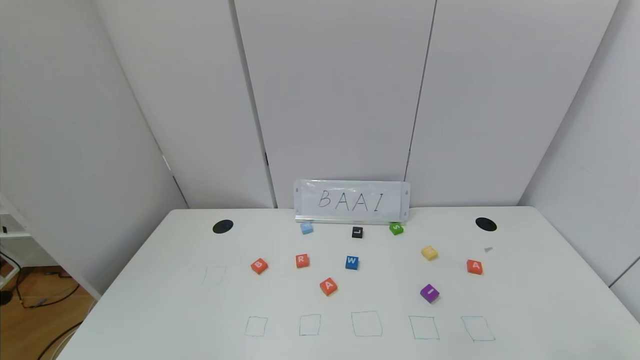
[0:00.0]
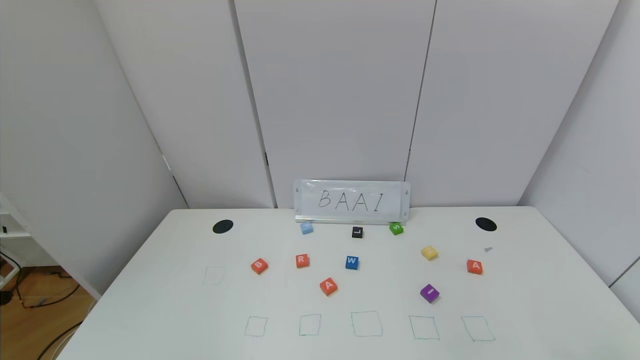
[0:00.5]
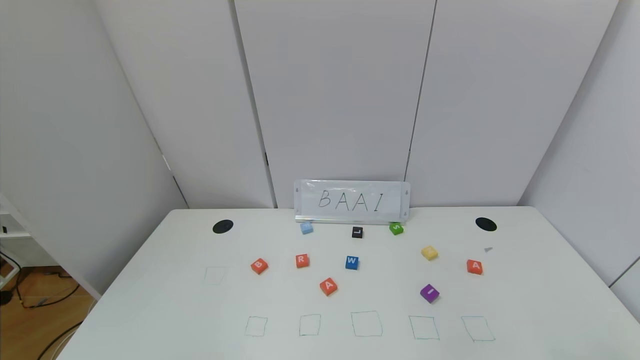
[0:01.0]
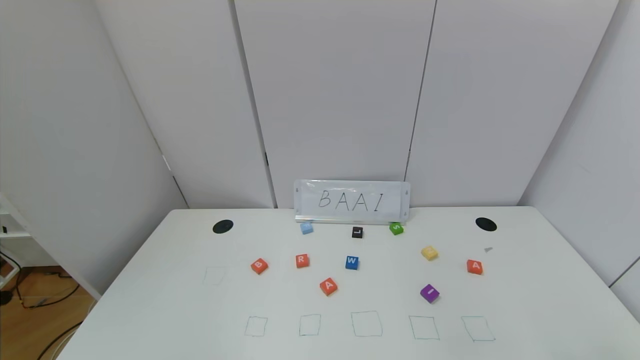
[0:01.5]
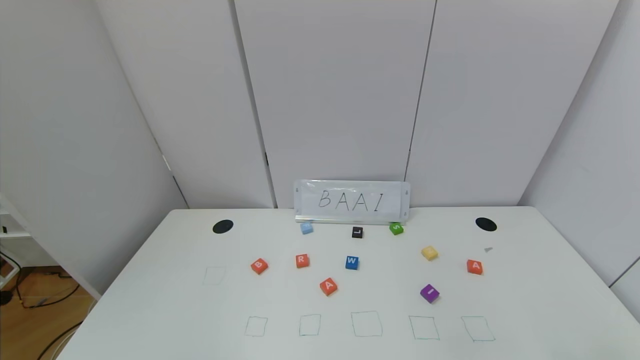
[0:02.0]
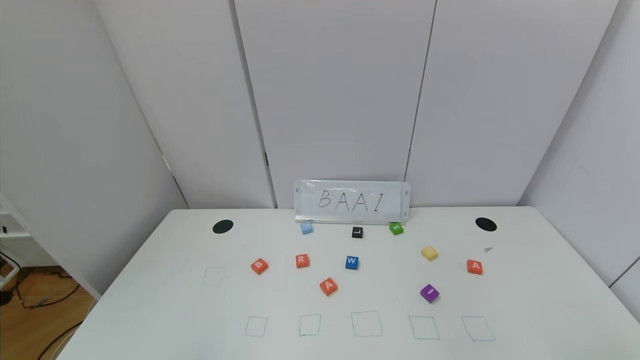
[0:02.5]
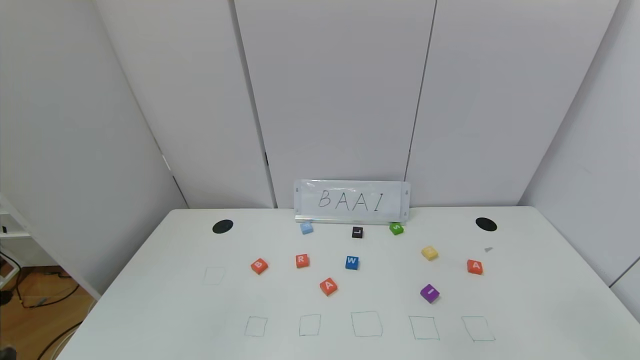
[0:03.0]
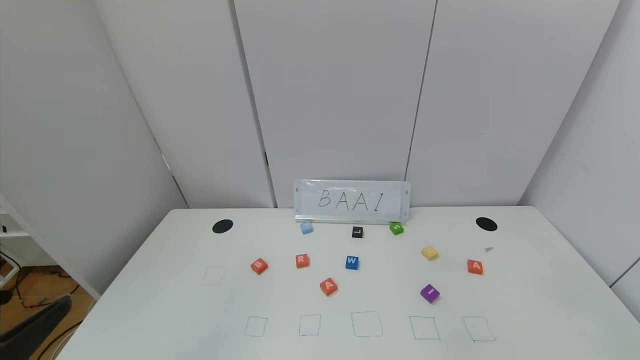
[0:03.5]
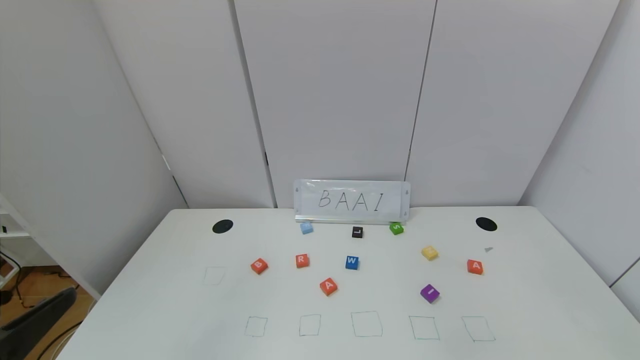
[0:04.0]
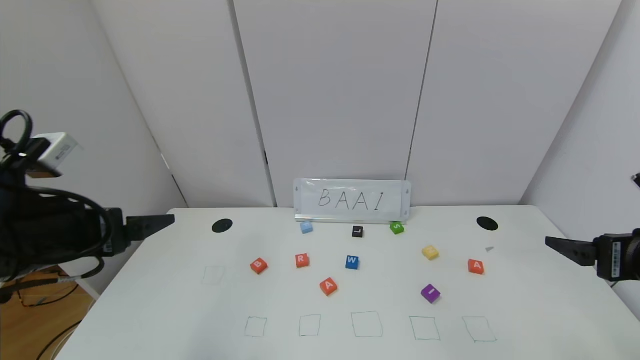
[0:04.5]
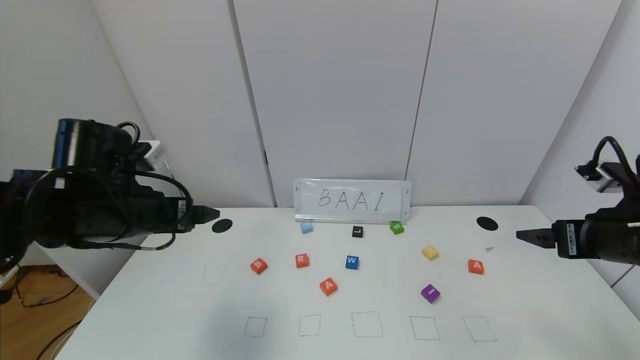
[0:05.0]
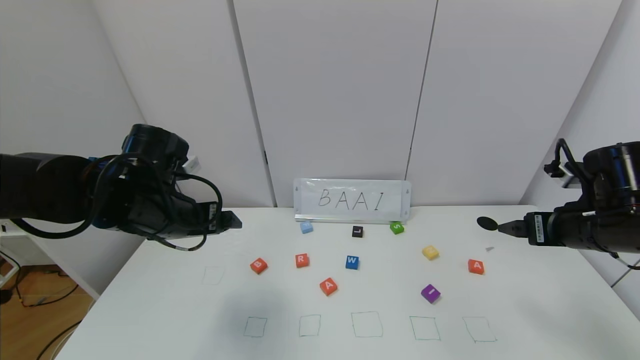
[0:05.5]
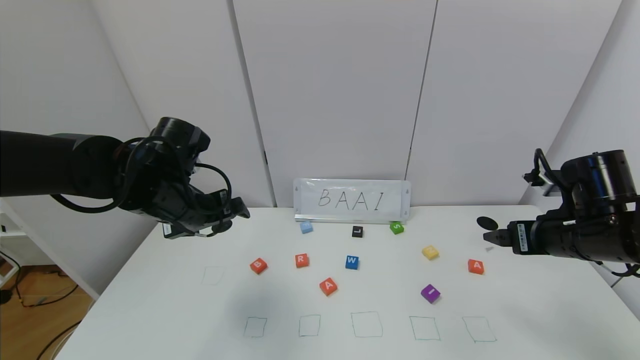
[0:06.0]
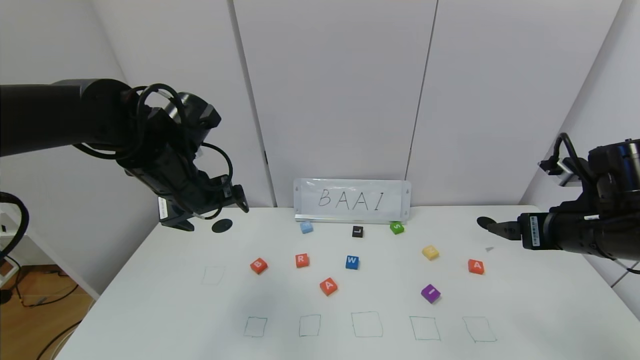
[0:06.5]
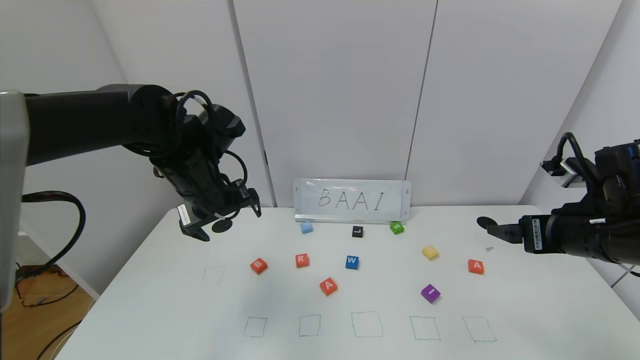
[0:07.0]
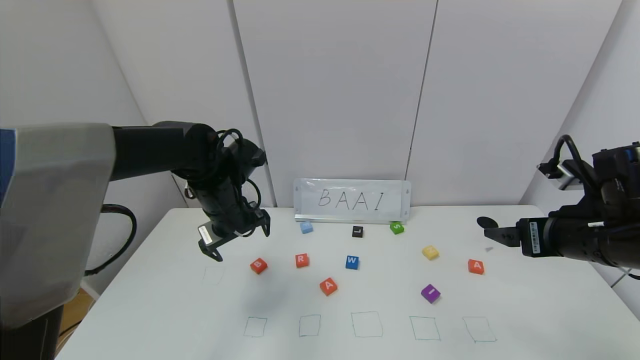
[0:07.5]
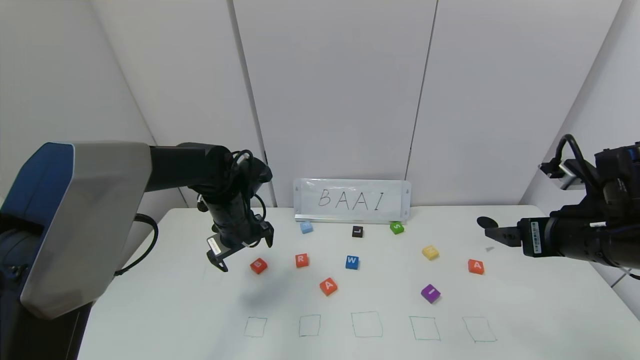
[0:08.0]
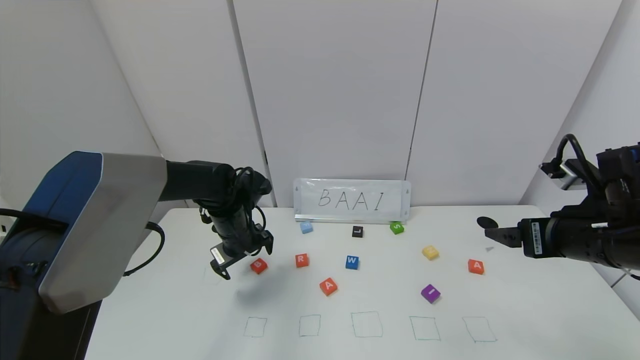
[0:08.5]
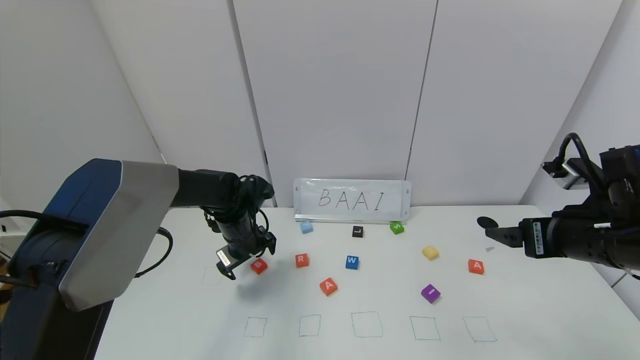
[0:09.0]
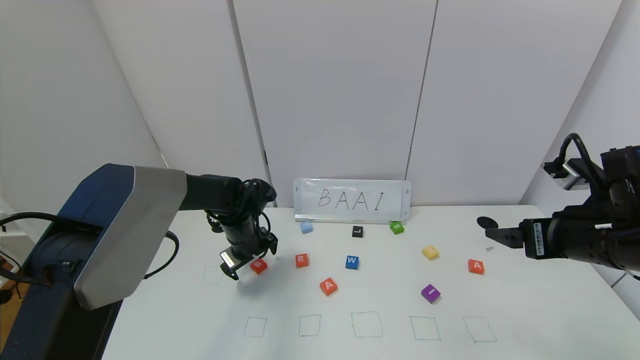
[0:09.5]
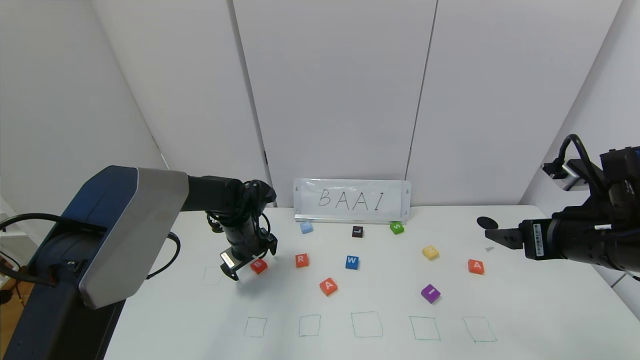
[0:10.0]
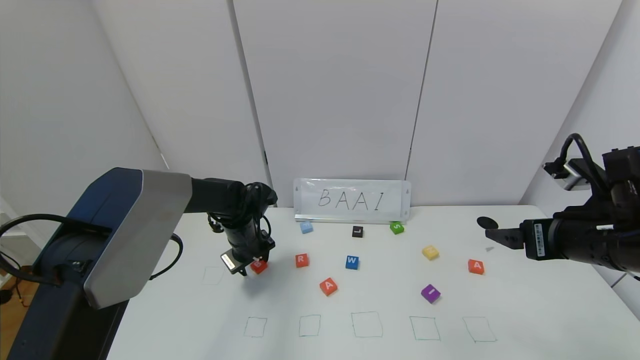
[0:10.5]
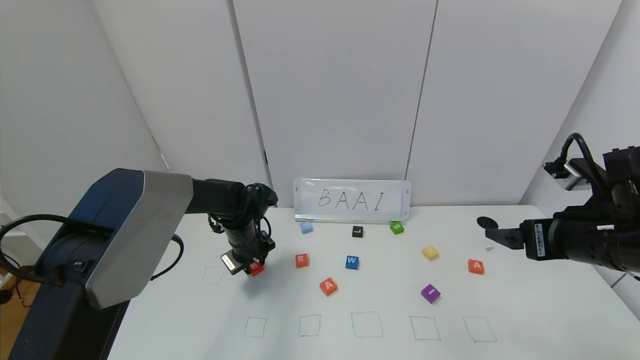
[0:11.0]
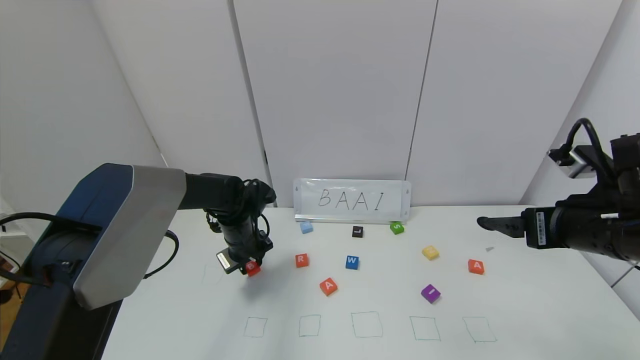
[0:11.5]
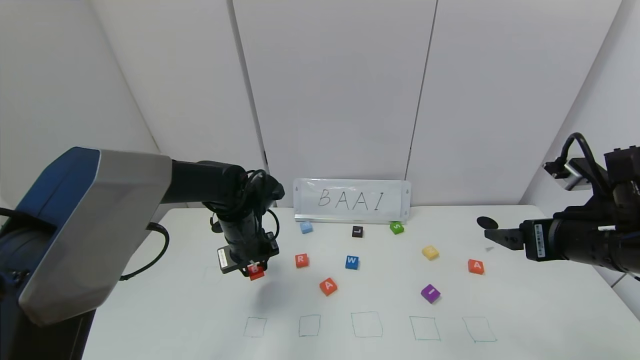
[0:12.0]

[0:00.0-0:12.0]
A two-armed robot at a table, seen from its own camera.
Task of the whole recording: use the gripper to find blocks with the letters b, a, a, and i on the table and arrange them into BAAI, then find r and N and turn the arranged baai into brian.
0:00.0 to 0:02.0: Neither gripper changes place.
0:02.0 to 0:04.0: The left gripper goes approximately 15 cm upward and forward.
0:04.0 to 0:06.0: Both grippers move forward, approximately 25 cm.
0:06.0 to 0:08.0: The left gripper travels downward and forward by some 10 cm.
0:08.0 to 0:10.0: The left gripper travels downward by about 5 cm.
0:10.0 to 0:12.0: The left gripper ends up approximately 5 cm from where it was, and closes.

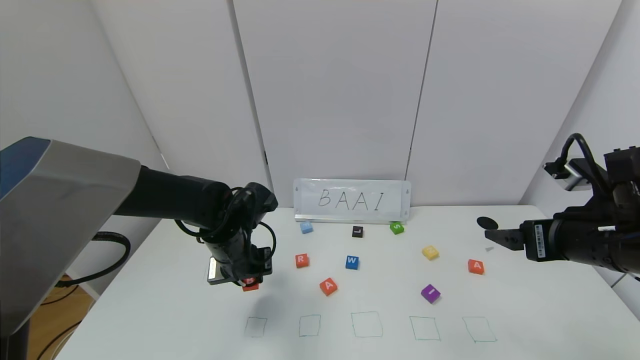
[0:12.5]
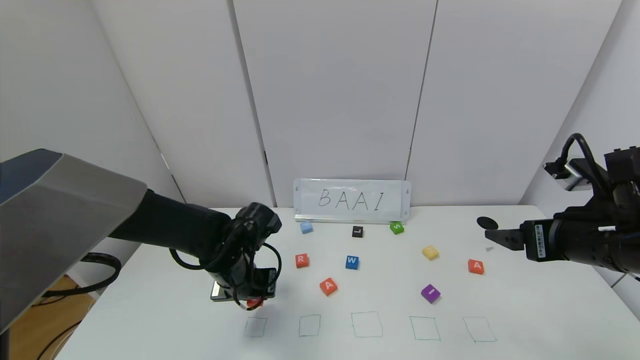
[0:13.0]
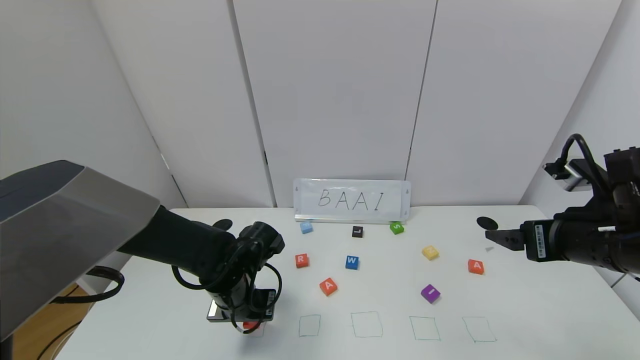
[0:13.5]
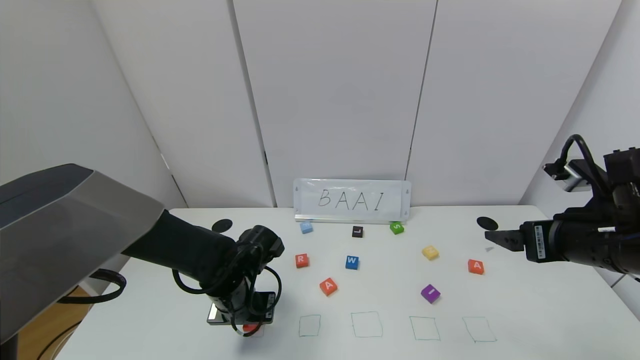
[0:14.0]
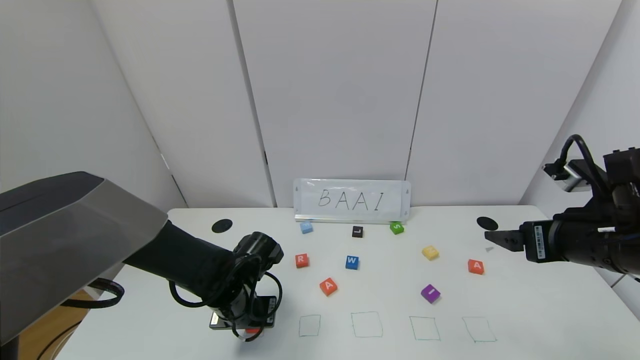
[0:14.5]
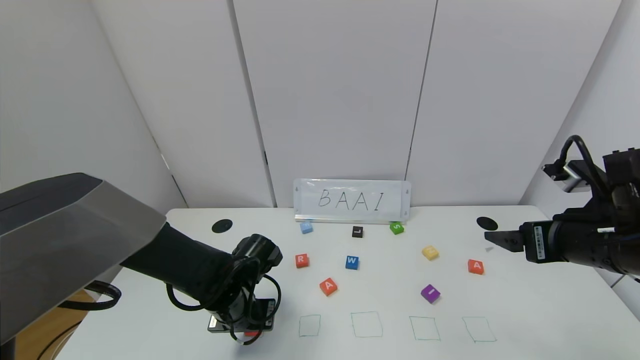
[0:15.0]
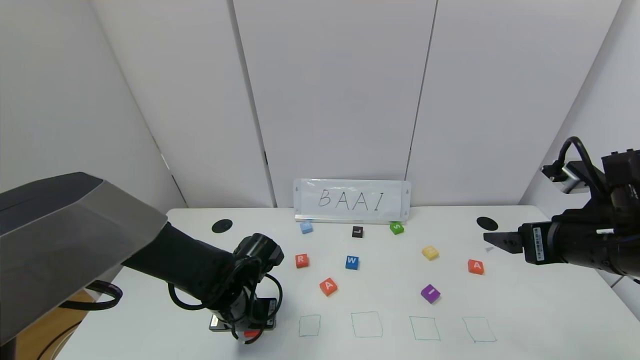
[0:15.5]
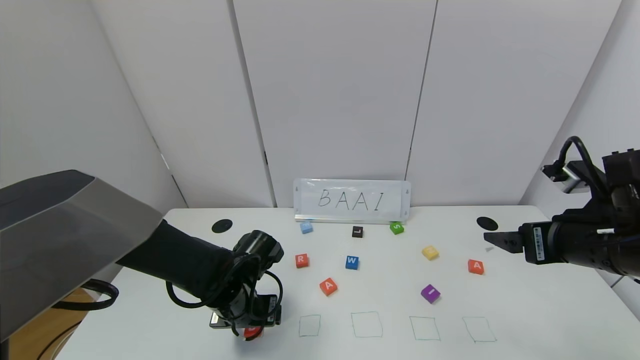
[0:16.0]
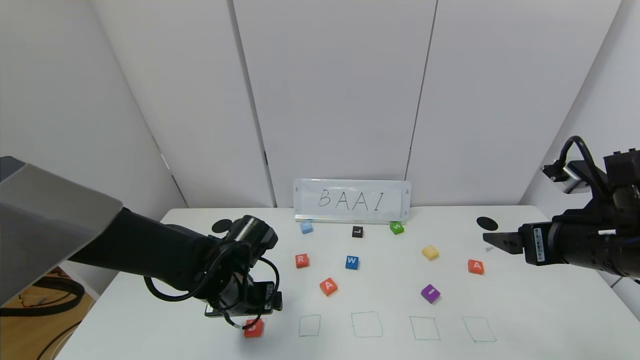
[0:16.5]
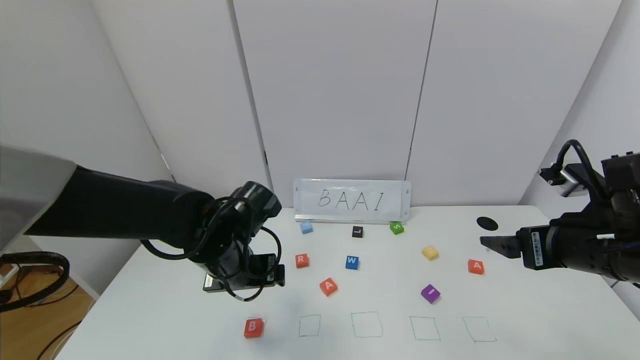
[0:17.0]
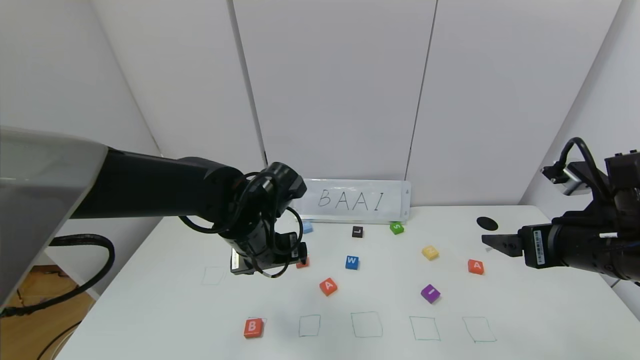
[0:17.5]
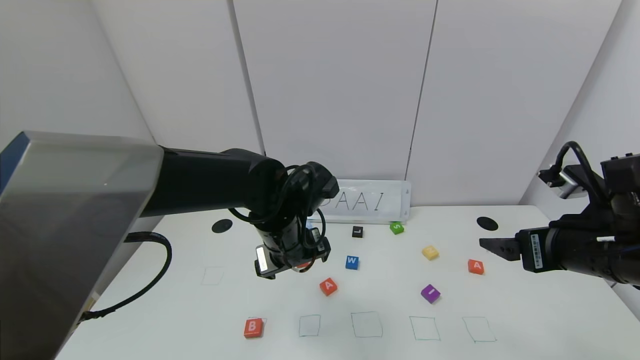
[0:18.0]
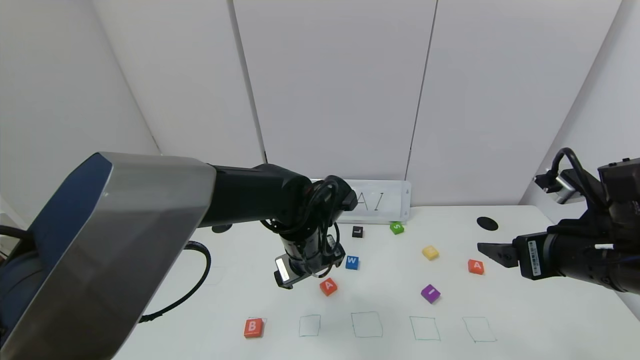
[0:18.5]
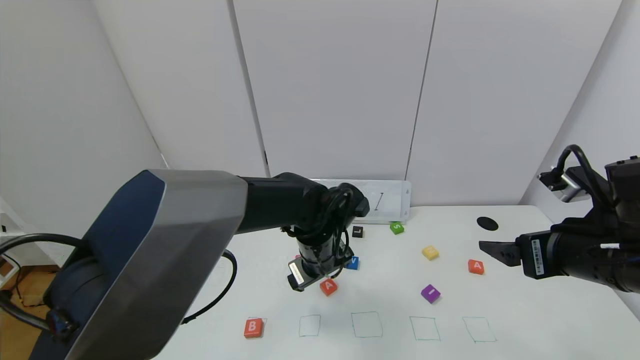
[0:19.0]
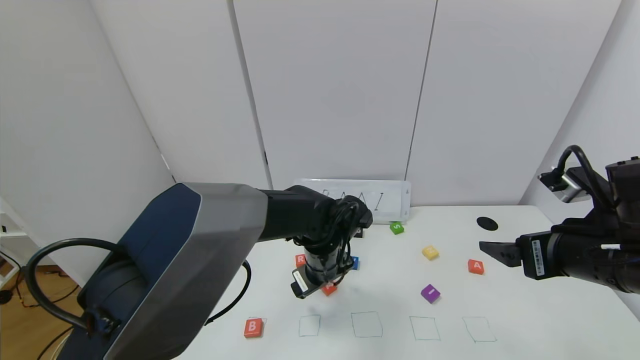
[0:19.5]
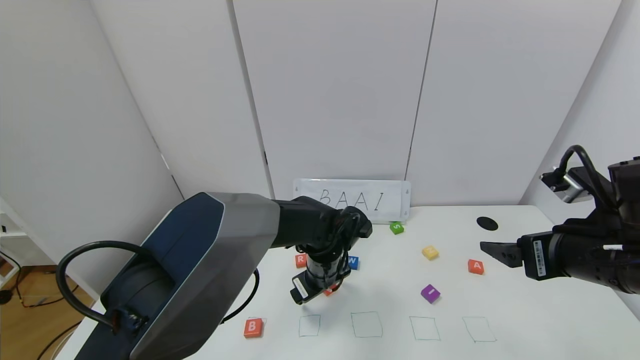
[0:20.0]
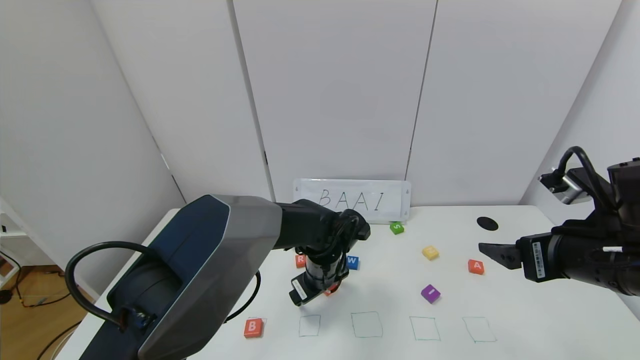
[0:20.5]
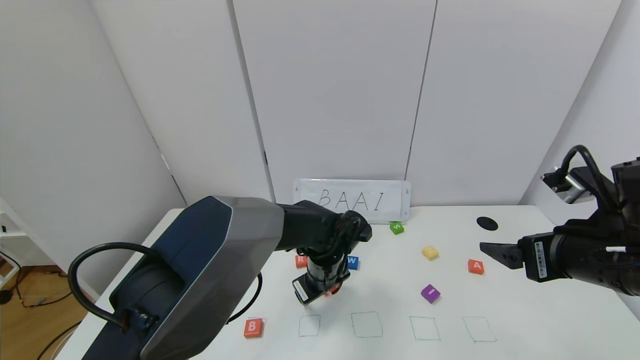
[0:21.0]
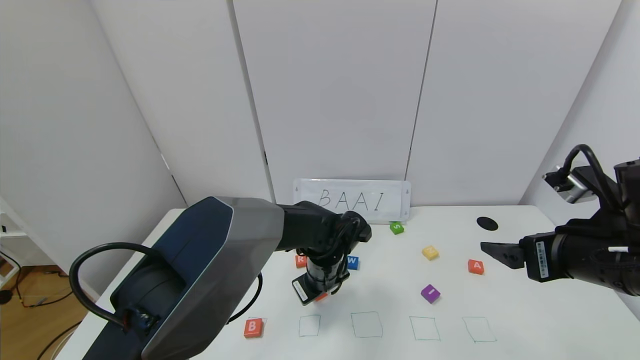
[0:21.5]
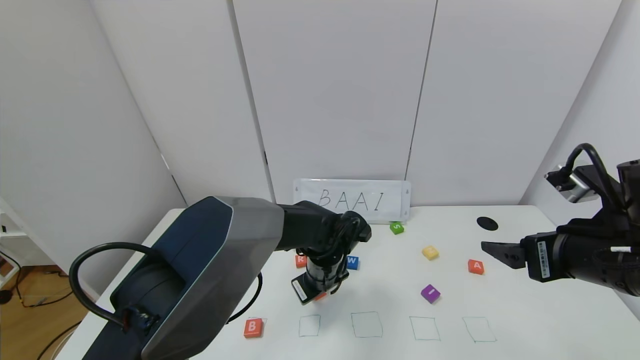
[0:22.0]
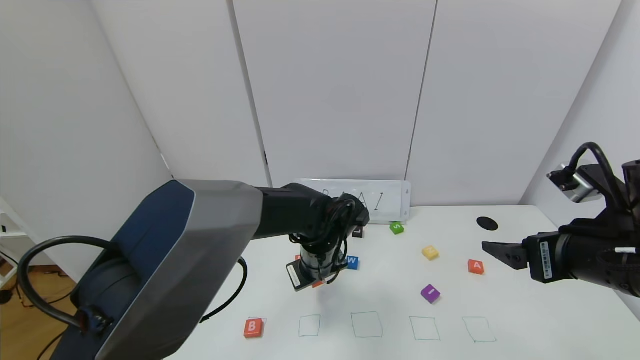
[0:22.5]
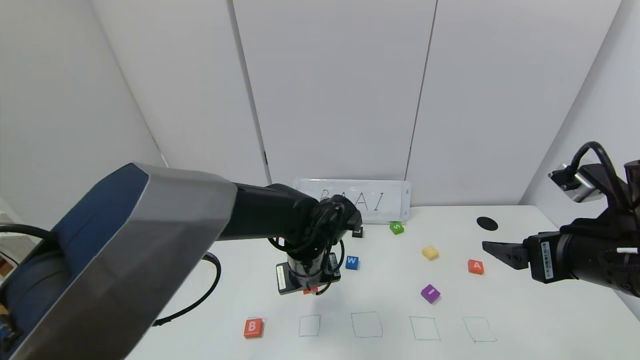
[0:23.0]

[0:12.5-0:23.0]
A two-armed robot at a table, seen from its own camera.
Task of the whole recording: use the gripper to find blocks with the letters b, a, a, and i on the table and arrange them into BAAI, then find r and N and turn the arranged baai into brian.
Step, 0:12.5 to 0:15.5: Place the block B in the first location.
0:12.5 to 0:14.5: The left gripper goes some 5 cm downward.
0:14.5 to 0:16.5: The left gripper opens up.
0:16.5 to 0:19.0: The left gripper shifts roughly 15 cm to the right and forward.
0:19.0 to 0:21.0: The left gripper travels downward by some 5 cm.
0:21.0 to 0:23.0: The left gripper travels upward by about 5 cm, and closes up.
